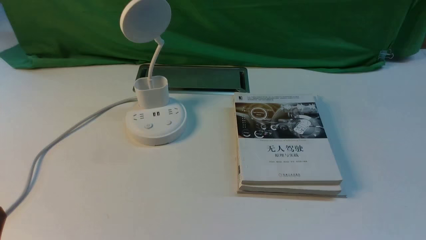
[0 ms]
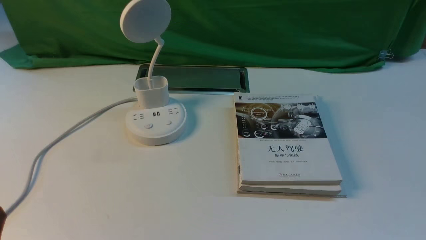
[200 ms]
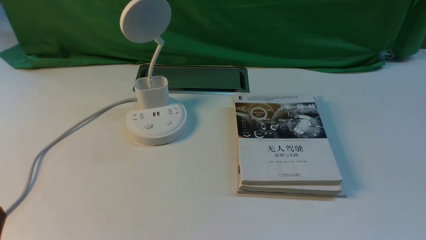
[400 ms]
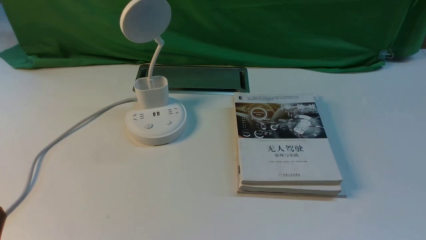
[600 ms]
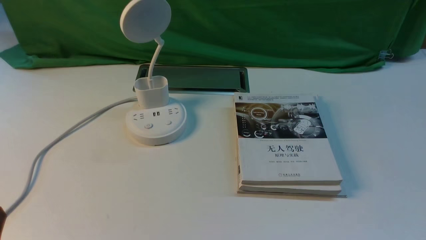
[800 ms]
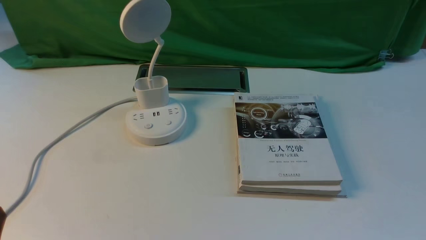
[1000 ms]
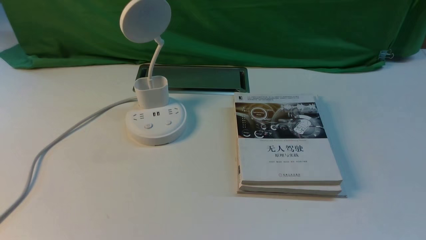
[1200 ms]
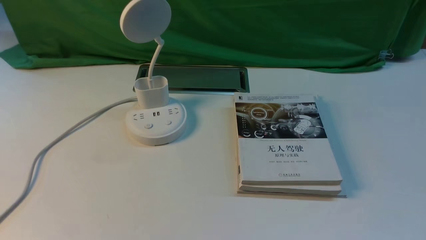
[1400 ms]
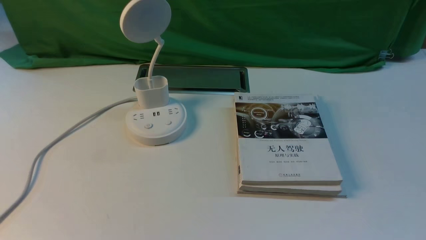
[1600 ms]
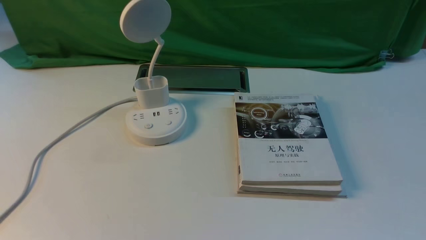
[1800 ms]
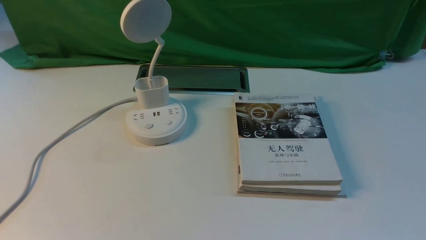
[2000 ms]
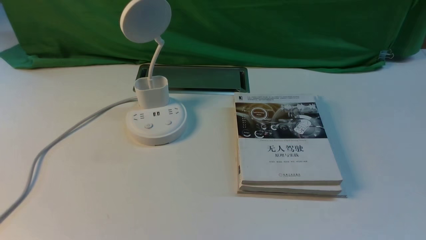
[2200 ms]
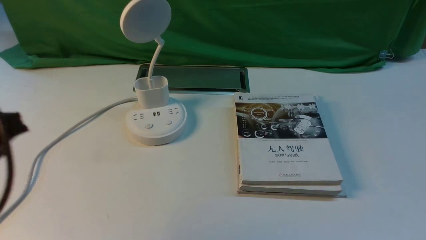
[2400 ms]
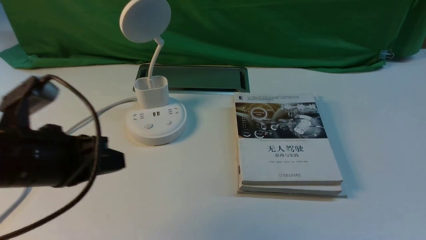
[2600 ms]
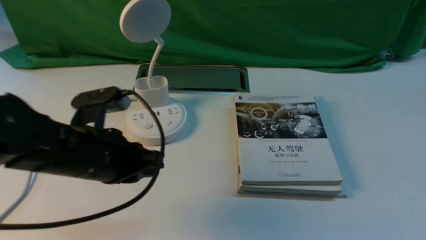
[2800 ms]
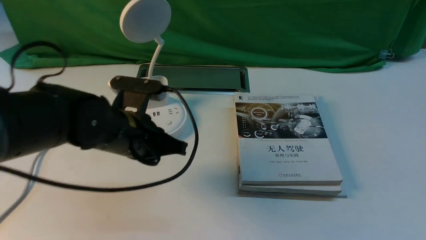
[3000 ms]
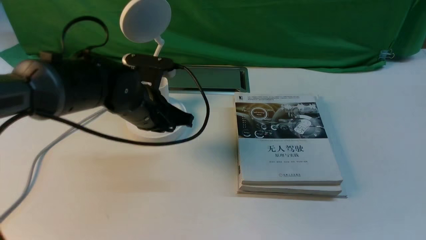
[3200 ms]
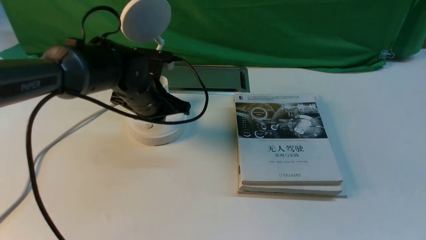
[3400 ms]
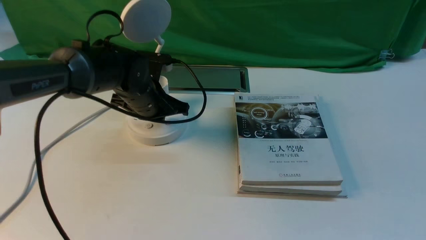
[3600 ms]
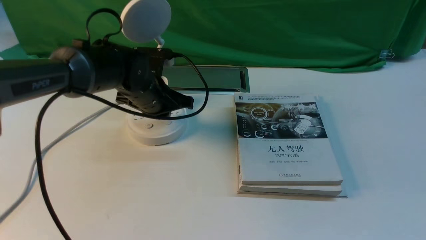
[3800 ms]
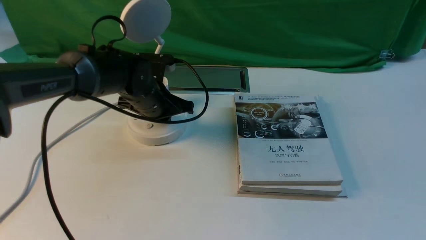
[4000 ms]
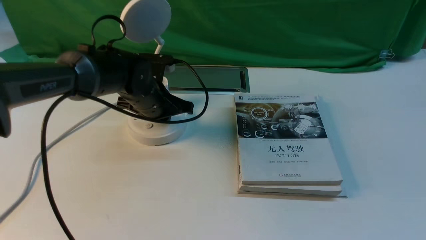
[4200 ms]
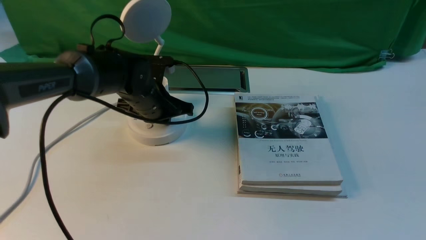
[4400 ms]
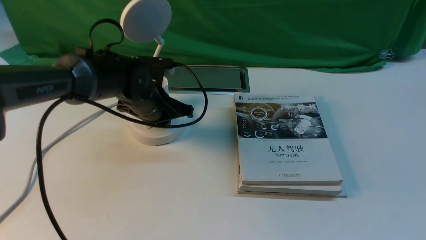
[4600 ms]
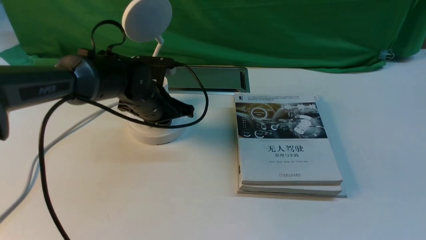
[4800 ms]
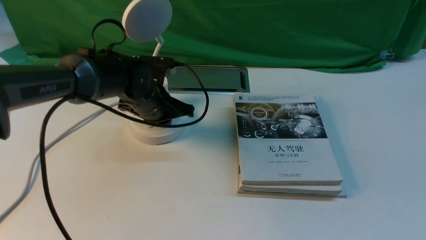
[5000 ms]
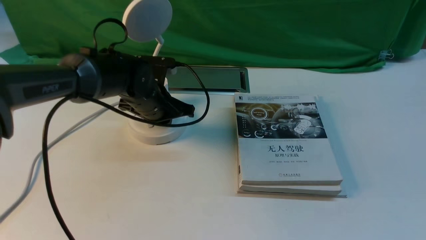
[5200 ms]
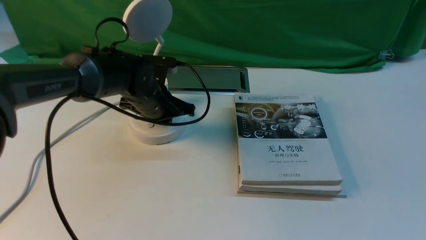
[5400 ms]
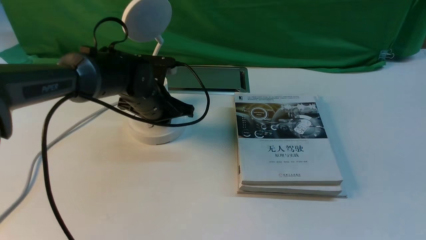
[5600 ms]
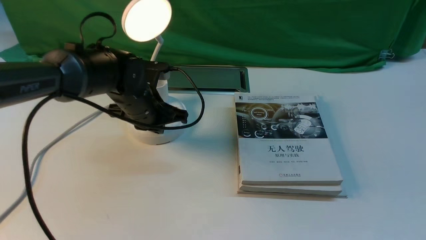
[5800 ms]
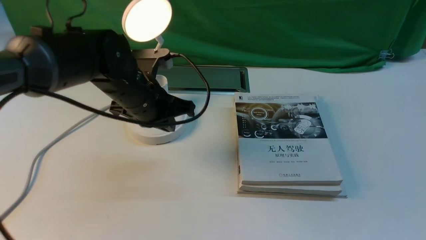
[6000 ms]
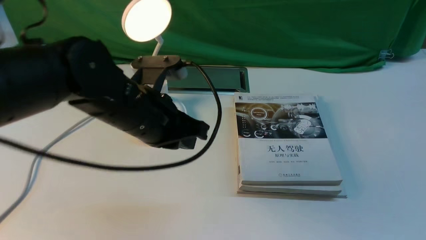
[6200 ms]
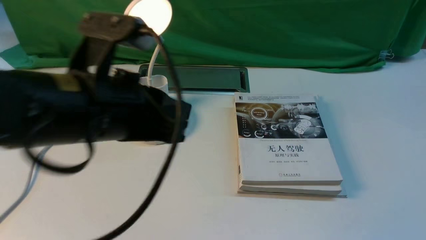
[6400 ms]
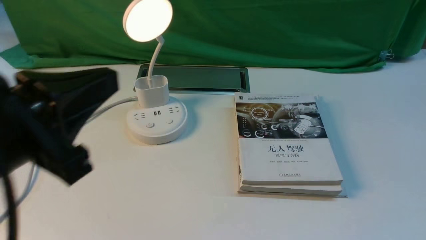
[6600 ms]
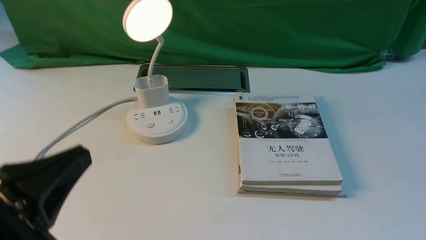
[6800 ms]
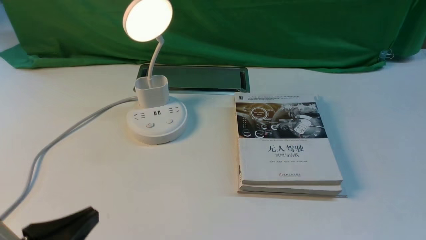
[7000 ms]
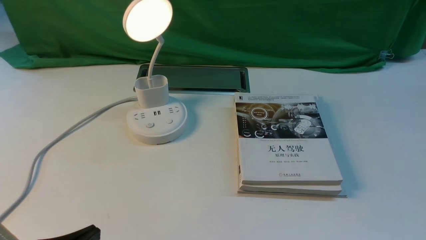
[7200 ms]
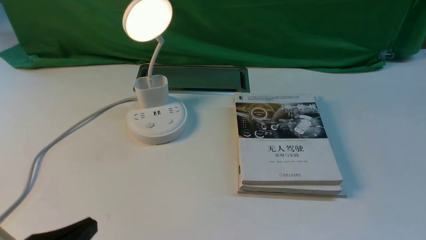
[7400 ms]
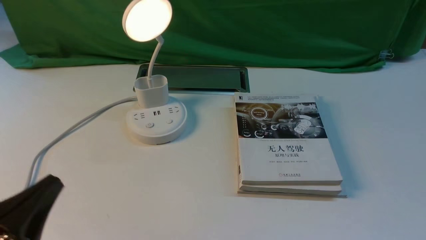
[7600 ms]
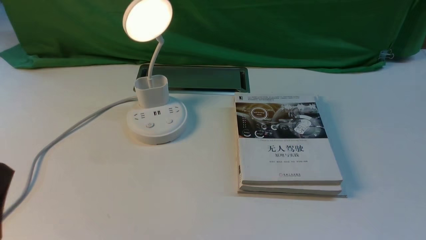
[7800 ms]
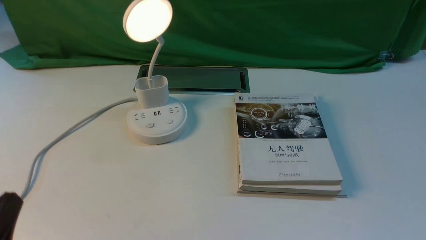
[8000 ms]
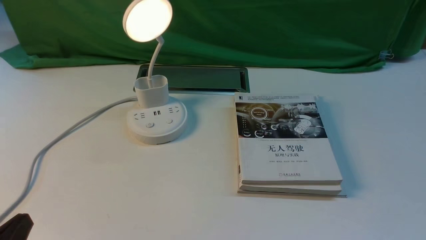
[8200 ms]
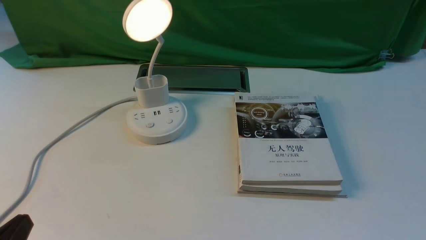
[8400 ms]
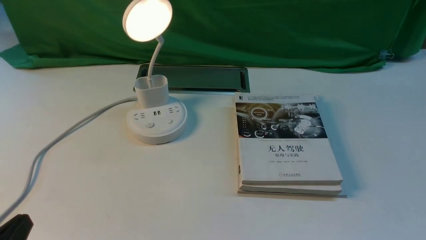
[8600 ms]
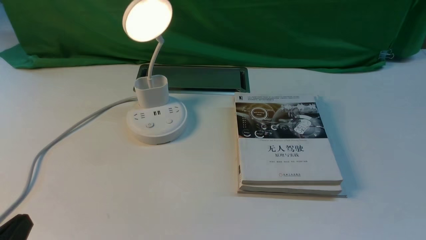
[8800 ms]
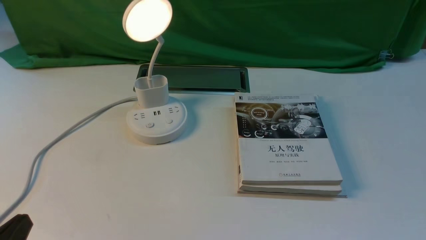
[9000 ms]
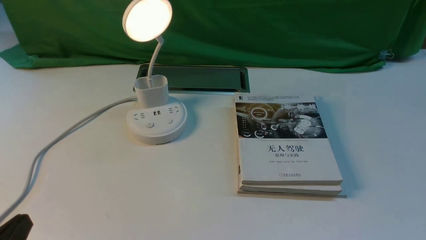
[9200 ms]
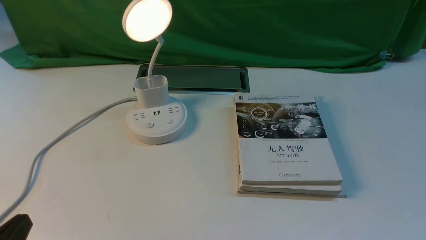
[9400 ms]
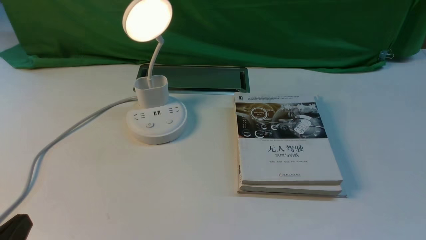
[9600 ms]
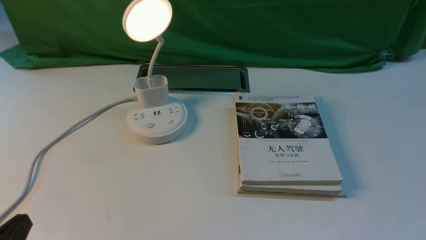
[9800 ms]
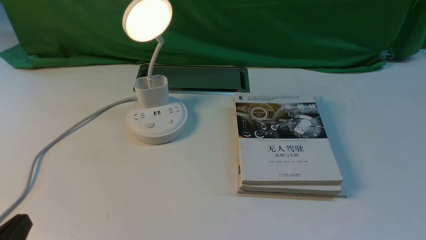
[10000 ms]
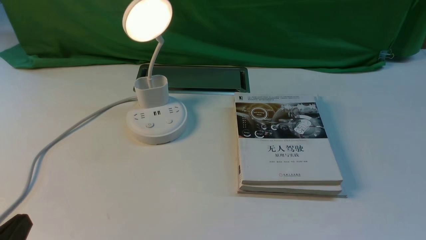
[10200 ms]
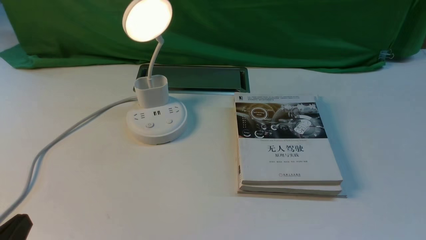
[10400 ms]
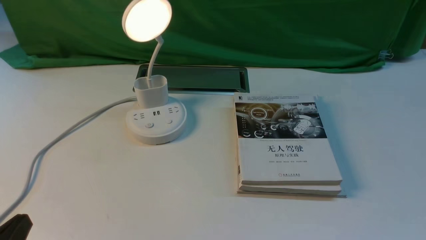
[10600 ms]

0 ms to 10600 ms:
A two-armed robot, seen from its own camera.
Step, 0 ms to 5800 ms: use the left arm to press the button switch on the lamp holder.
1600 ms to 3000 ms: The left gripper heads forward and to the right, covering approximately 30 cm, and opens its fingers.
3000 ms to 4600 ms: The left gripper moves forward and downward, some 10 cm.
4600 ms to 6000 ms: The left gripper moves upward and backward, roughly 10 cm.
6000 ms to 7600 ms: The left gripper is displaced backward and to the left by roughly 30 cm.
9000 ms to 10600 ms: Neither gripper changes place.
